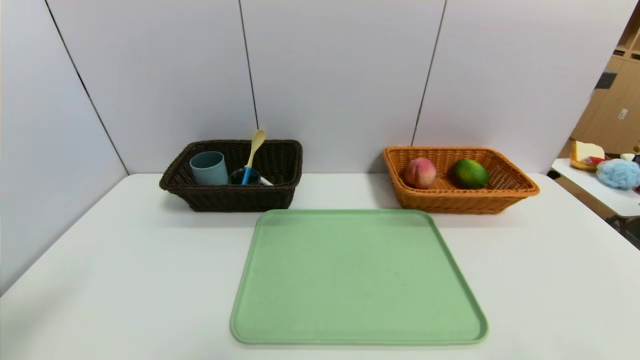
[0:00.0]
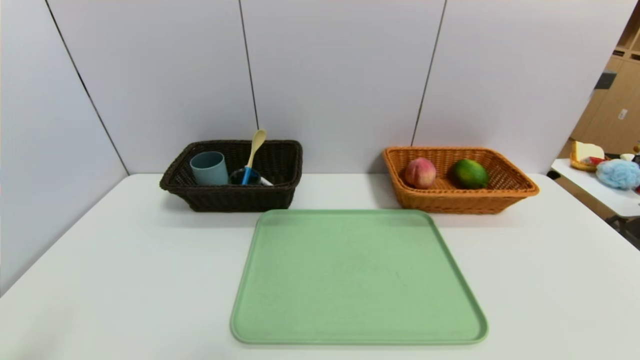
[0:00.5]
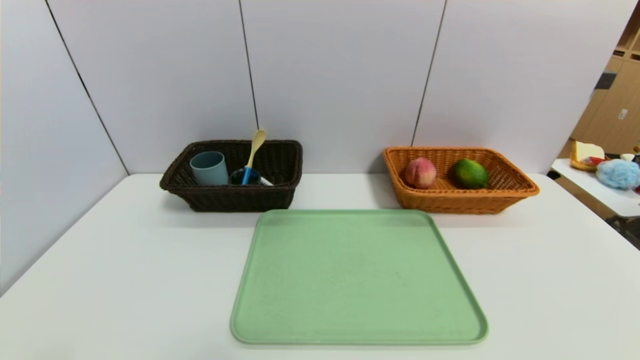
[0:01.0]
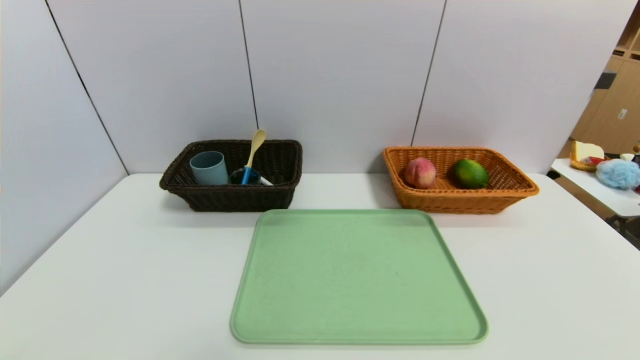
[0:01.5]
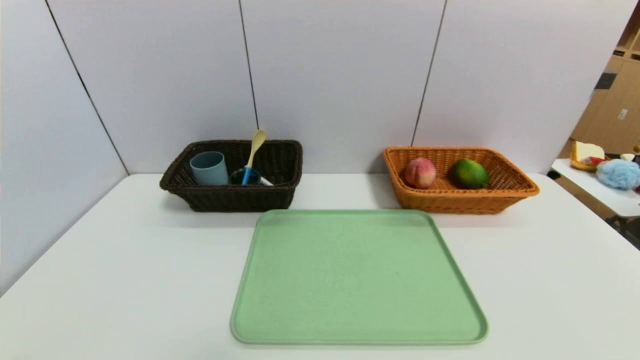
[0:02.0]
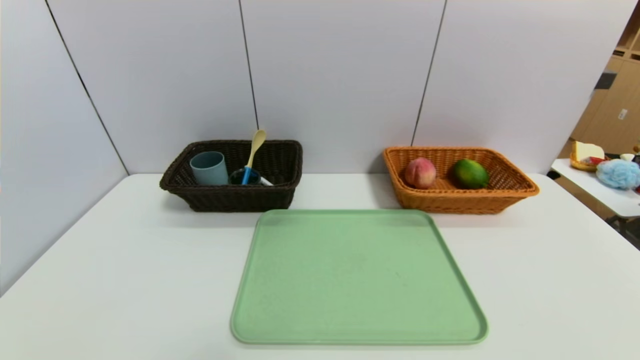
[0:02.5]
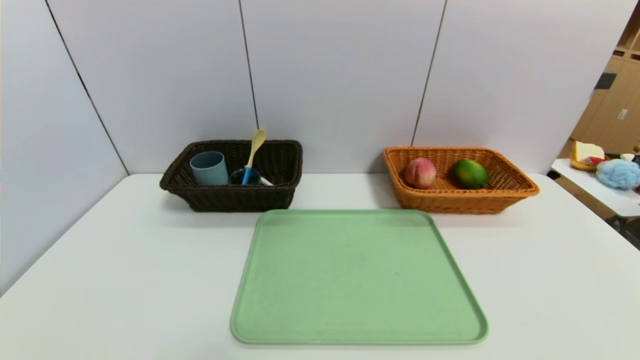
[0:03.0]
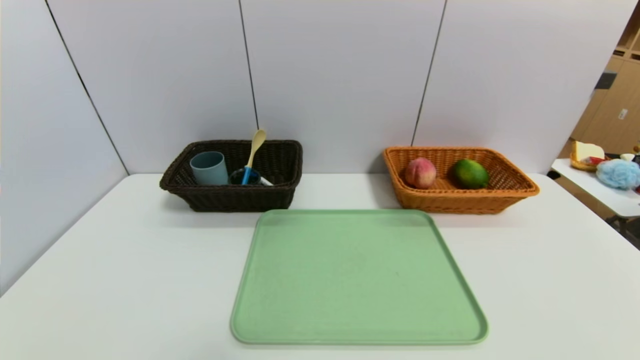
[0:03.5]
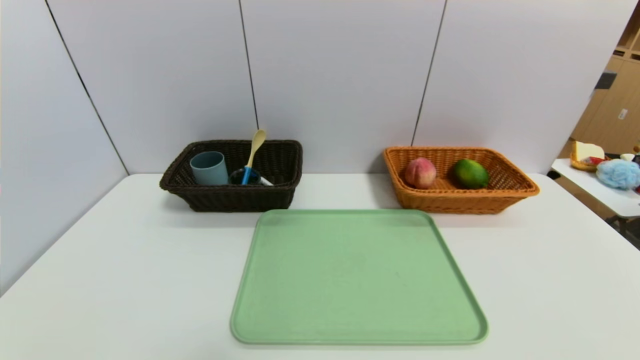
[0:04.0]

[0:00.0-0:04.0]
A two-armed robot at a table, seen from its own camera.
Task of the whole recording: place the food in the right basket with the right gripper, and place the non food items in the left basket with the left gripper.
0:00.0 to 0:02.0: The left gripper heads downward and backward, covering roughly 20 cm.
